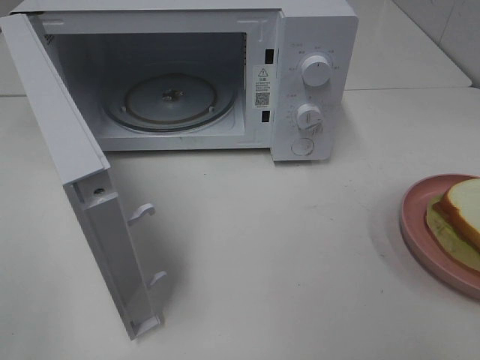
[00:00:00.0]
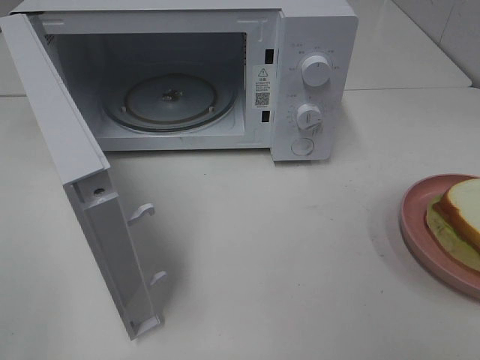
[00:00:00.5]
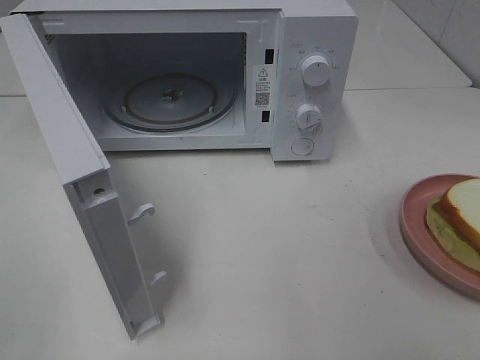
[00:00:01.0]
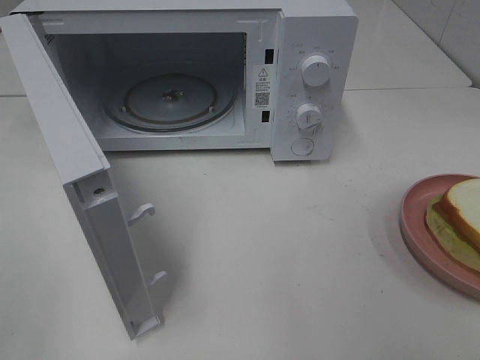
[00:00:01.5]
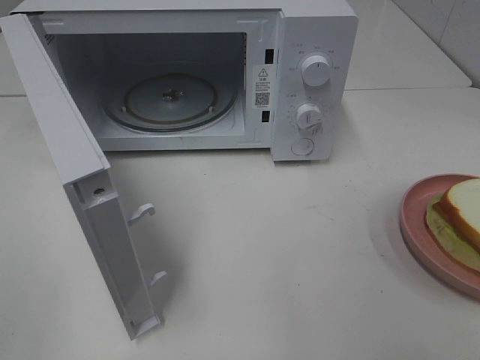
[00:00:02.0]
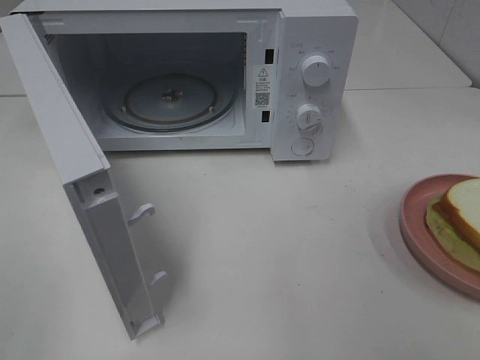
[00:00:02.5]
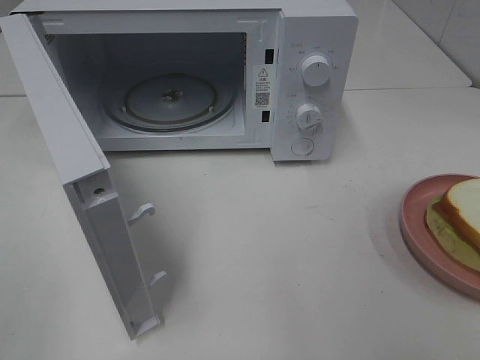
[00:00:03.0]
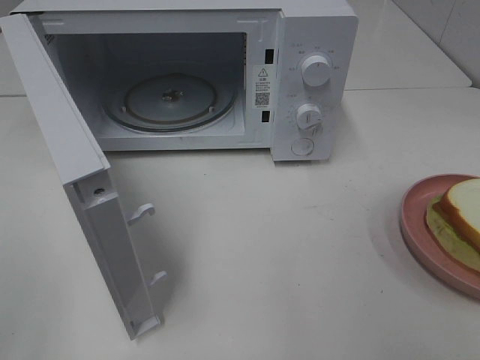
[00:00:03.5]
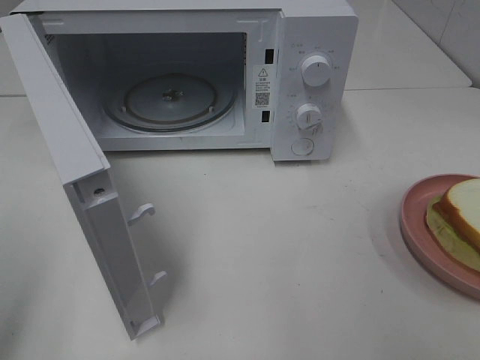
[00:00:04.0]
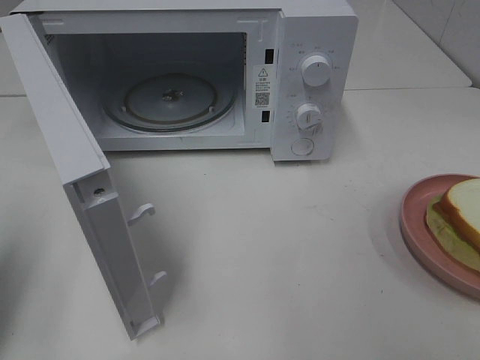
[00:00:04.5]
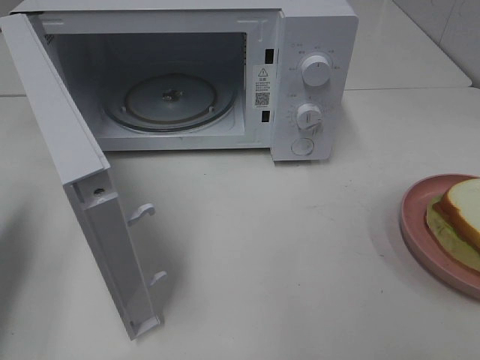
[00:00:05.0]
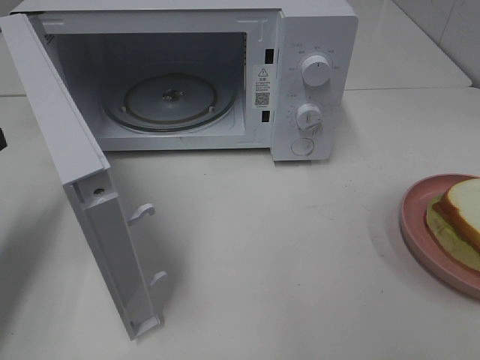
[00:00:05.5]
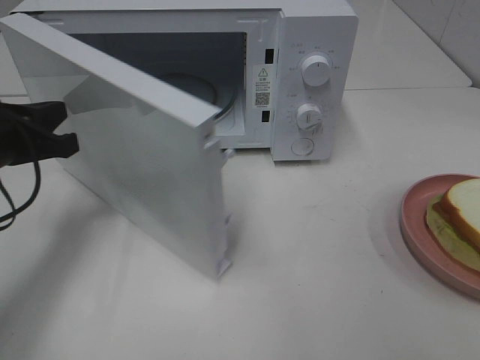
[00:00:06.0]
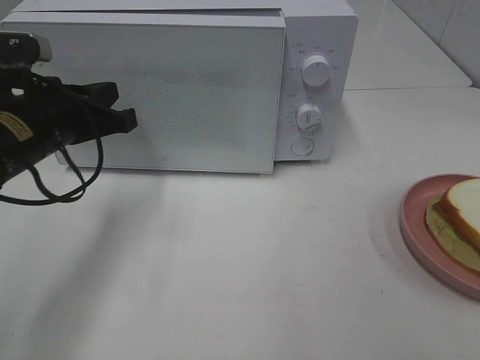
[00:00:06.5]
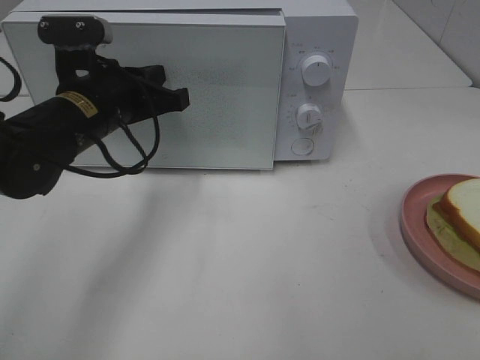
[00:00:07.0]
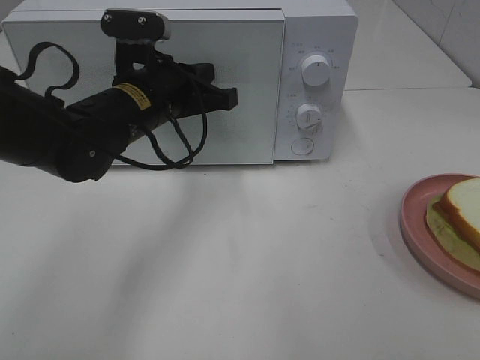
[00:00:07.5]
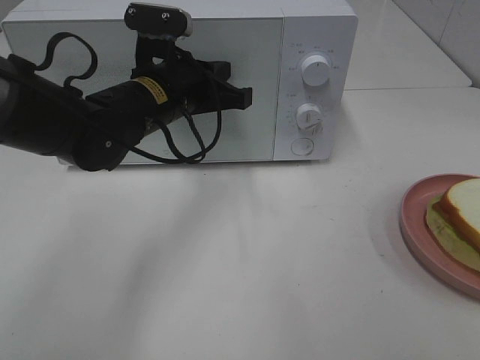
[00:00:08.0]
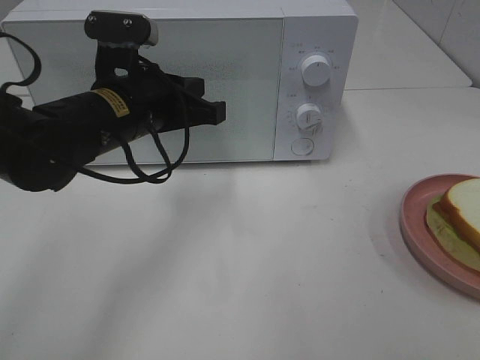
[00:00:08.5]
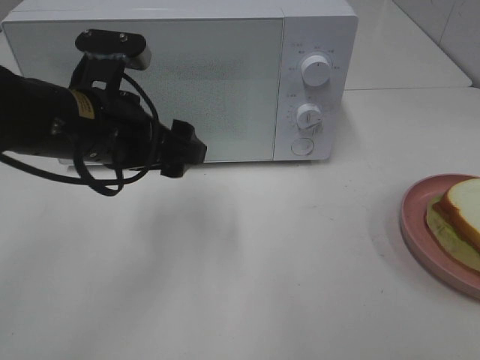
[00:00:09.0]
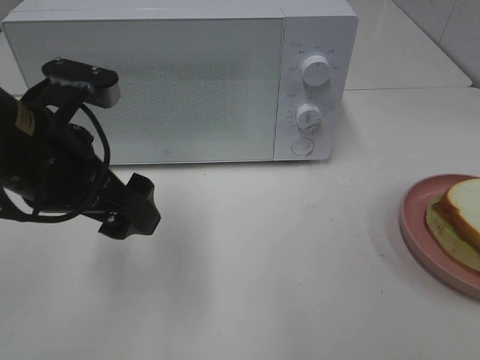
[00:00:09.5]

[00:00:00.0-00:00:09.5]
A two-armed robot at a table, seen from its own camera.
Task of the whole recording: Heat Sandwich.
Step, 00:00:00.0 to 00:00:08.0: Left hand: close the microwave door.
00:00:04.0 to 00:00:05.5: The left gripper is displaced forward and downward by roughly 20 cm, and closes up.
00:00:05.5 to 00:00:07.5: The left gripper shifts some 25 cm to the right and forward.
00:00:07.5 to 00:00:09.5: The left gripper goes about 15 cm backward and to the left, and opens.

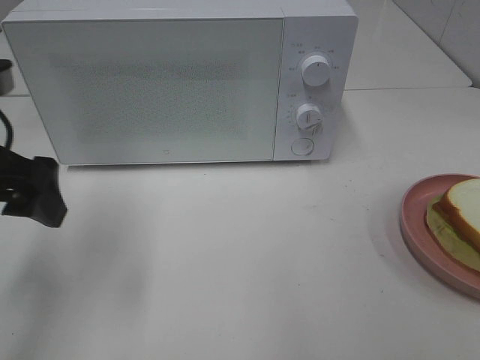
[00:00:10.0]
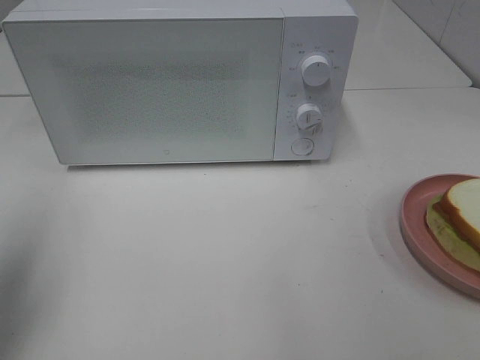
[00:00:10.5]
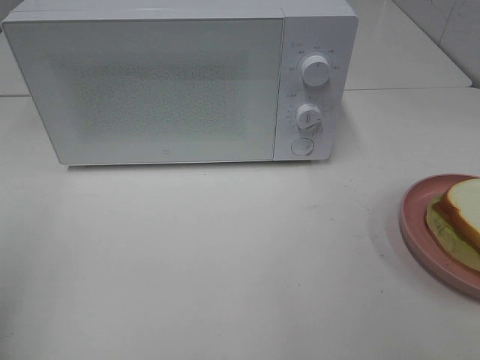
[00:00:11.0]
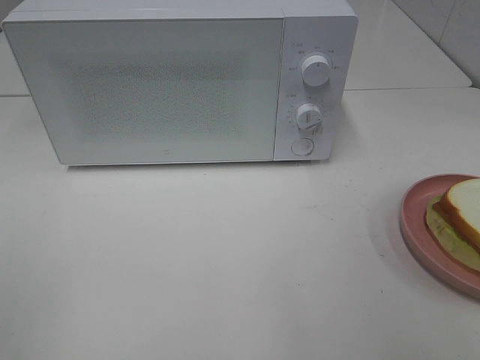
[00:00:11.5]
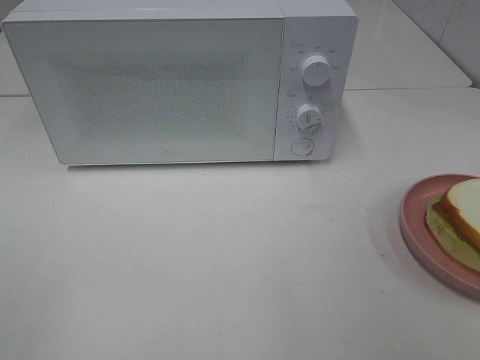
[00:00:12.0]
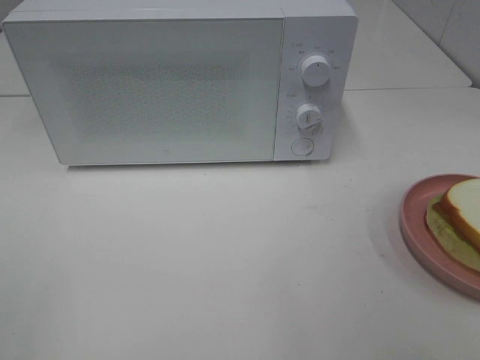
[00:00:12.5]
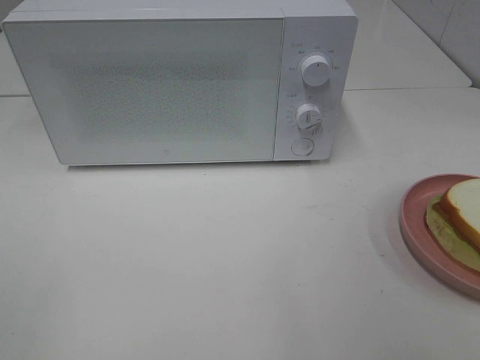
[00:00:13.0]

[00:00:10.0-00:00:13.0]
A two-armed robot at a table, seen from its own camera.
Task of the whole recording: Heat Sandwich.
00:00:10.0 to 00:00:11.5: The left gripper is displaced backward and to the left by roughly 20 cm.

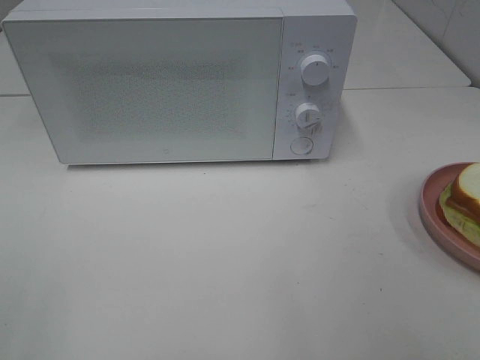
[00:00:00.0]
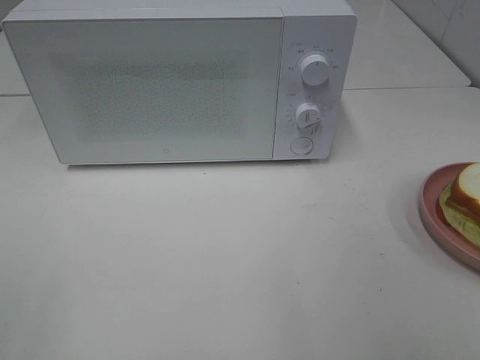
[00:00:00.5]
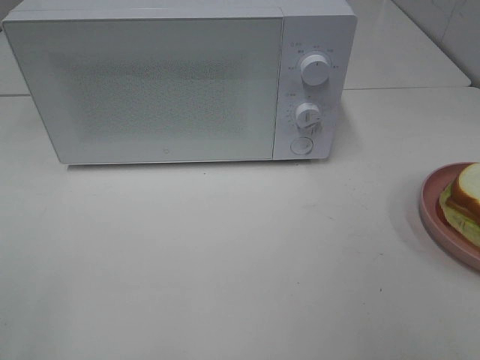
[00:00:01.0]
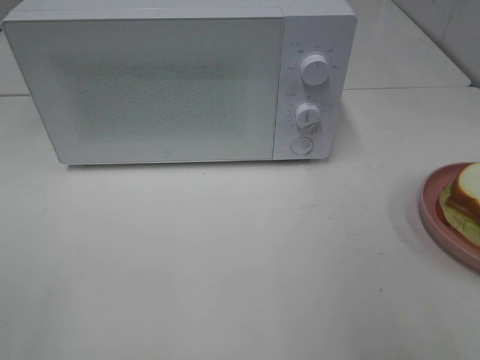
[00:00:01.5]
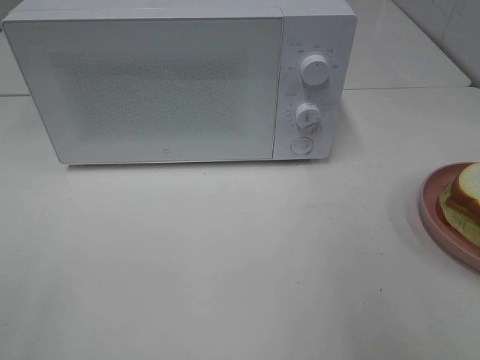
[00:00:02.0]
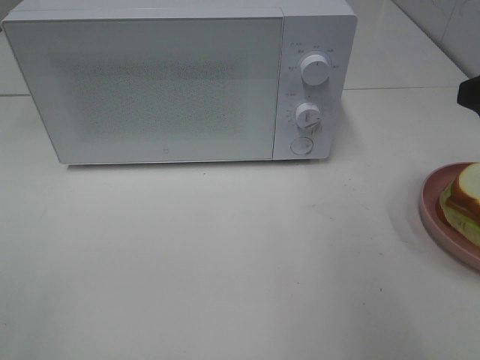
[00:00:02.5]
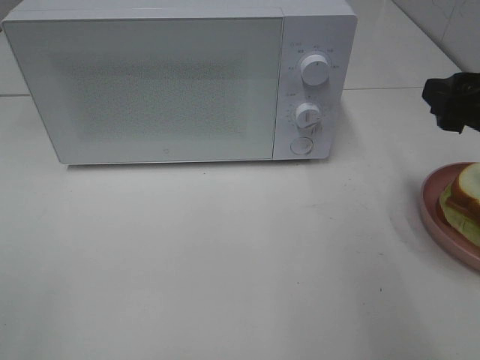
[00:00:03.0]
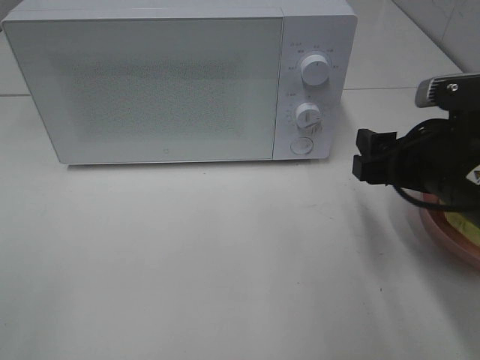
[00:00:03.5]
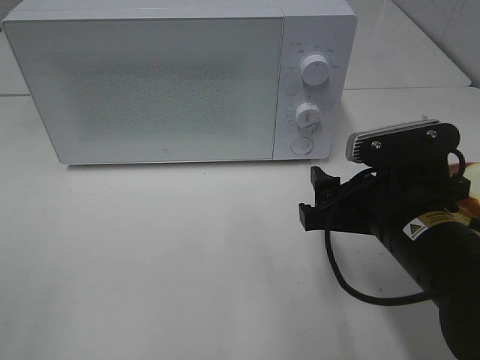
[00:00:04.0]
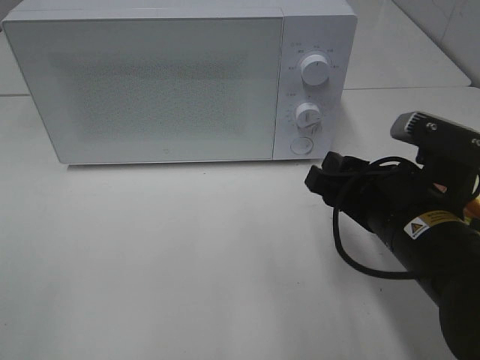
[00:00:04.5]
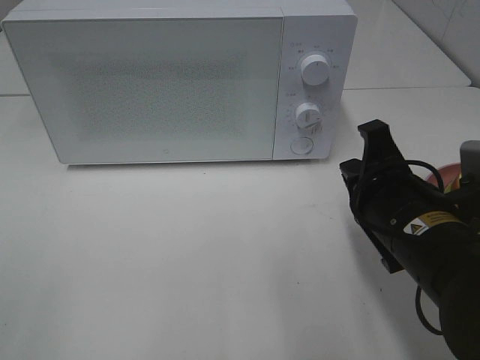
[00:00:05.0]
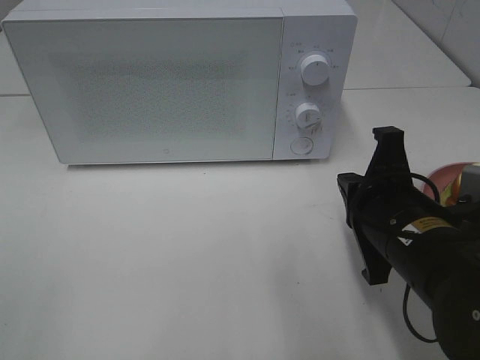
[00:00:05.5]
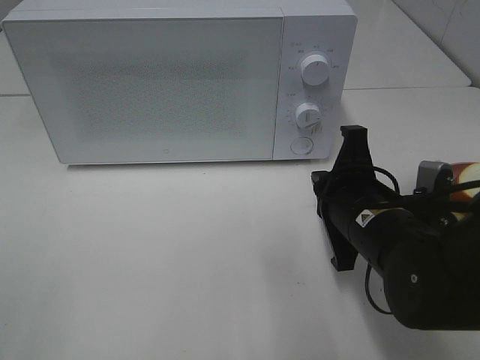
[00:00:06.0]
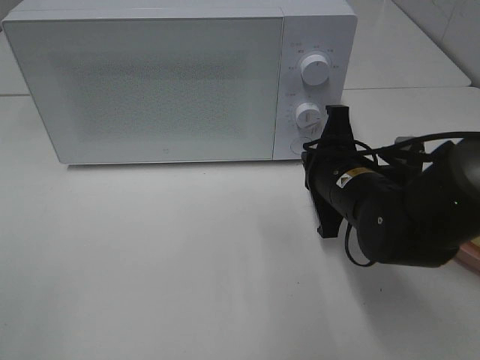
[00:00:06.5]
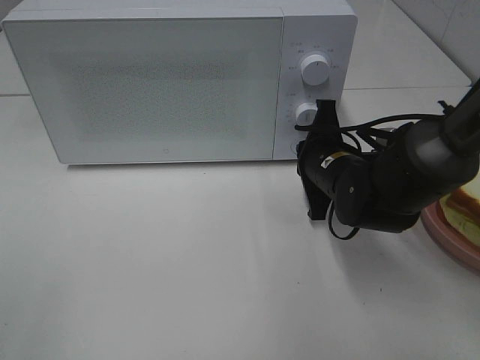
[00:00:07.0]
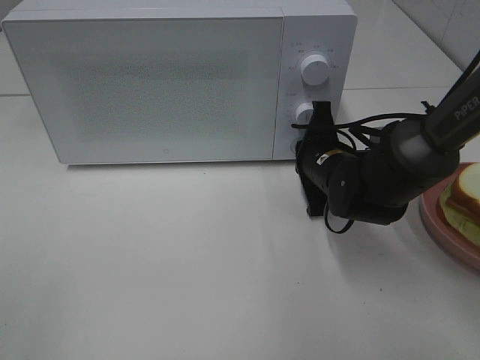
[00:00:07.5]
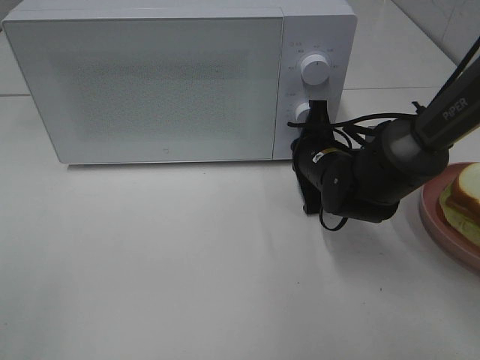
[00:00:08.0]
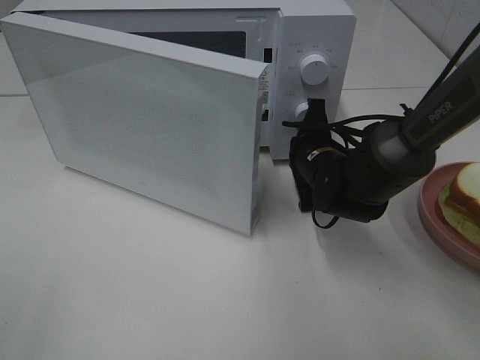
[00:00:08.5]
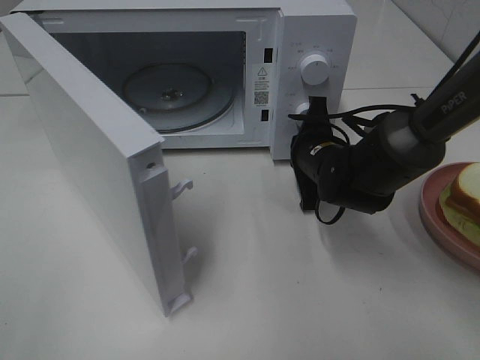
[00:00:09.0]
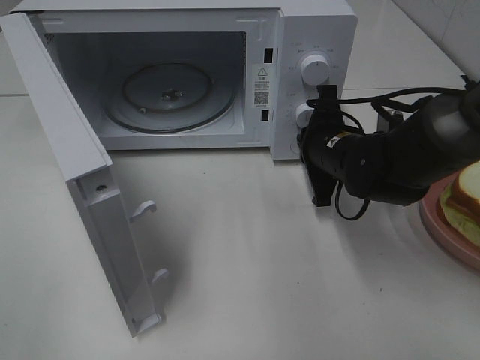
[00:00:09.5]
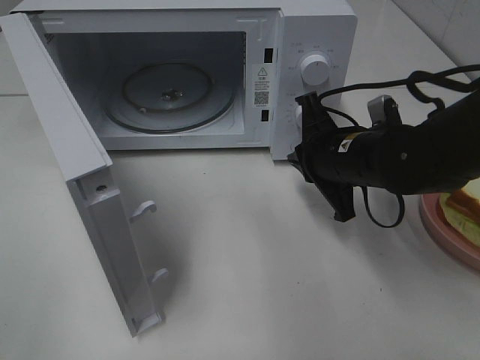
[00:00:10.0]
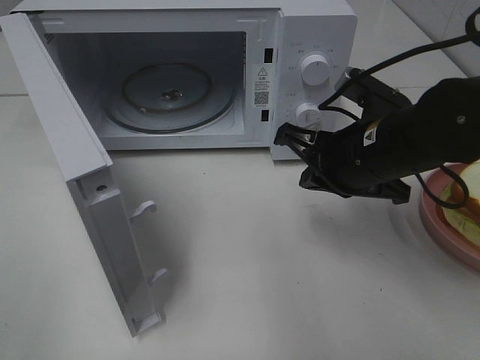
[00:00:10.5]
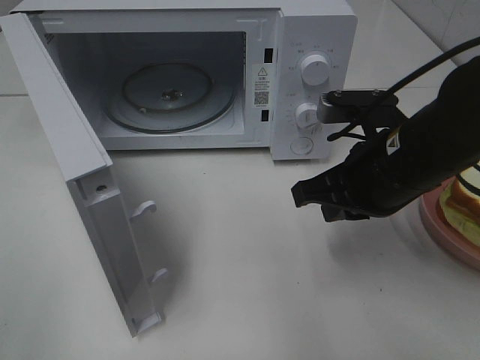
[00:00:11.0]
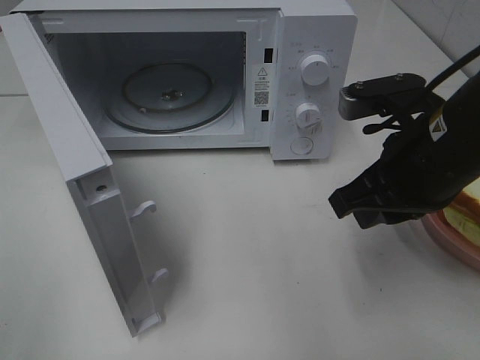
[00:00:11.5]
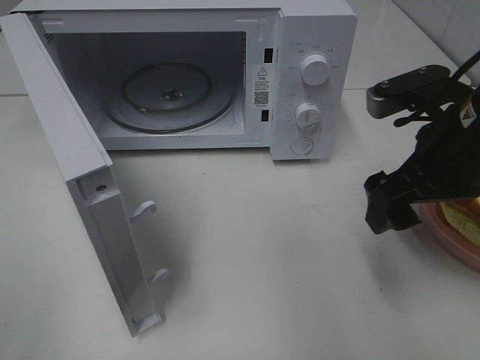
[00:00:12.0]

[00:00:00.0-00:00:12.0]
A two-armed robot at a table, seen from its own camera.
Task of the whole recording: Heat Sandwich.
Step, 00:00:00.0 to 00:00:09.5: Right hand: press the switch.
00:00:02.0 to 00:00:04.0: The right gripper shifts roughly 20 cm downward and to the left.
00:00:04.0 to 00:00:06.0: The right gripper closes up.
00:00:06.0 to 00:00:08.0: The right gripper moves forward, roughly 15 cm.
00:00:08.0 to 00:00:10.0: The right gripper goes roughly 5 cm upward.
00:00:10.0 to 00:00:12.0: The right gripper moves upward, backward and to the right, roughly 10 cm, and opens its fingers.

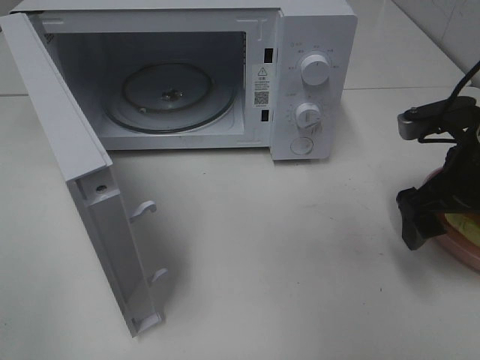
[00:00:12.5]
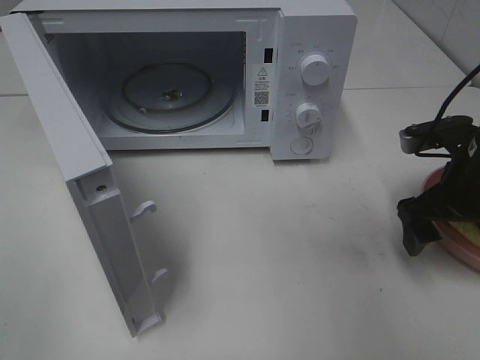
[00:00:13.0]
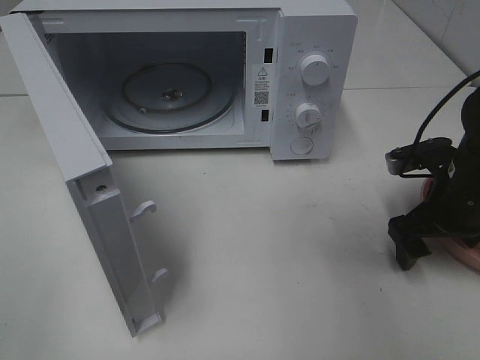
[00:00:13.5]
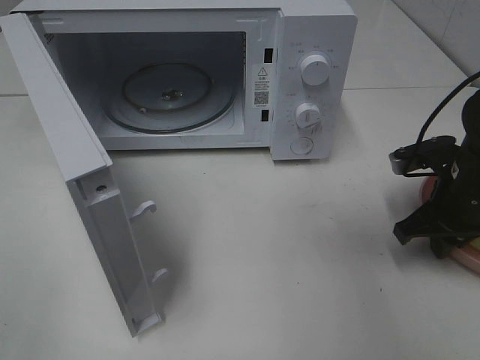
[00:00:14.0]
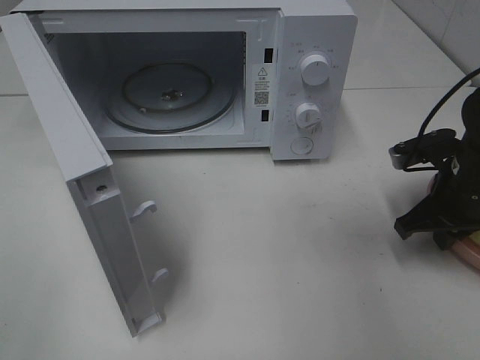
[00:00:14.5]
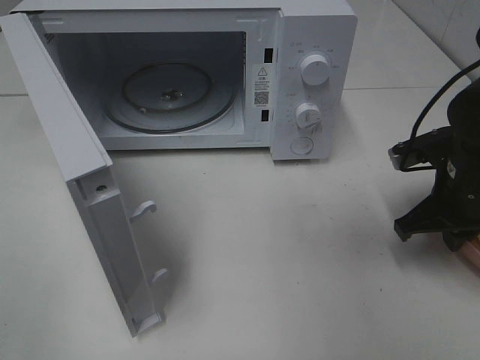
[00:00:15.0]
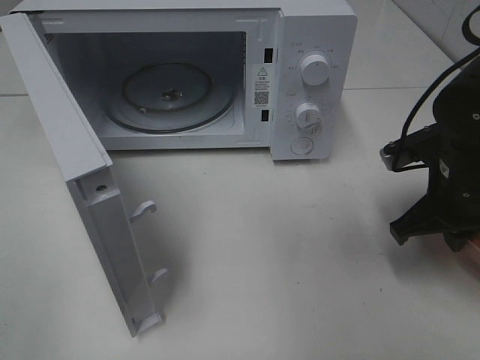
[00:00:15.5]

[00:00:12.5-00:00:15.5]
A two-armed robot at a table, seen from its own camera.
Task of the whole recording: Heat Sandwich.
Step, 00:00:12.5 to 00:00:14.5: Right hand: grab the plate with the sandwich.
00:00:12.5 to 00:00:14.0: The right gripper is displaced downward by about 5 cm, and closes its fingers.
00:00:14.0 to 00:00:15.5: The grippers move only a little.
